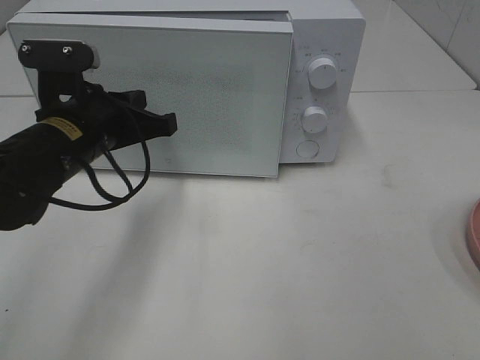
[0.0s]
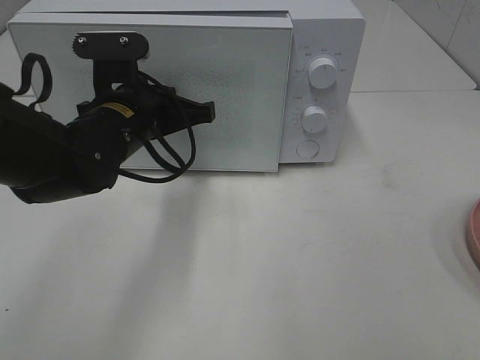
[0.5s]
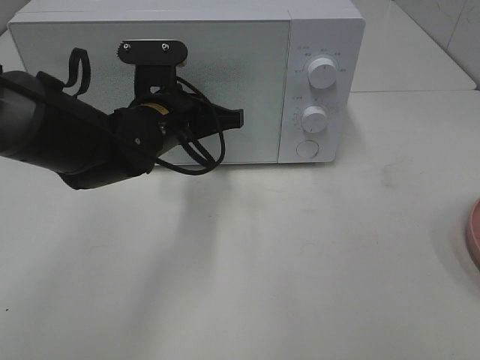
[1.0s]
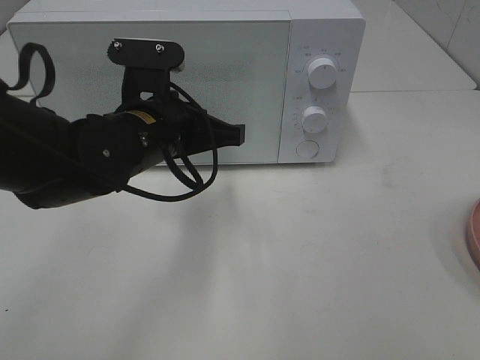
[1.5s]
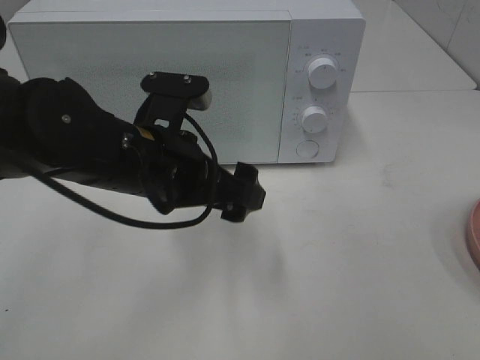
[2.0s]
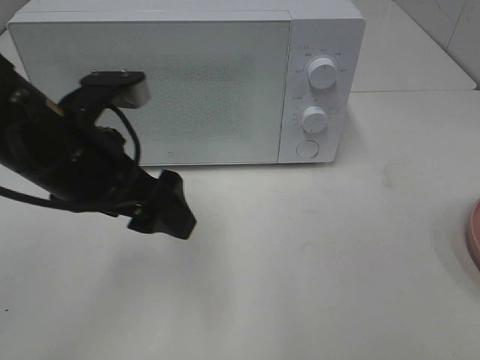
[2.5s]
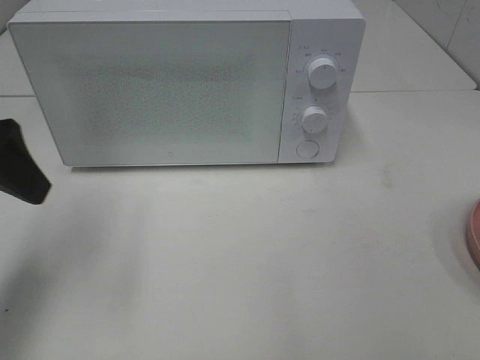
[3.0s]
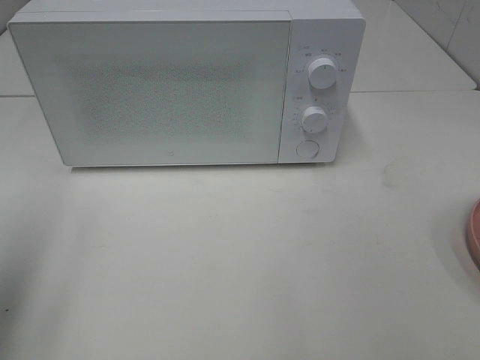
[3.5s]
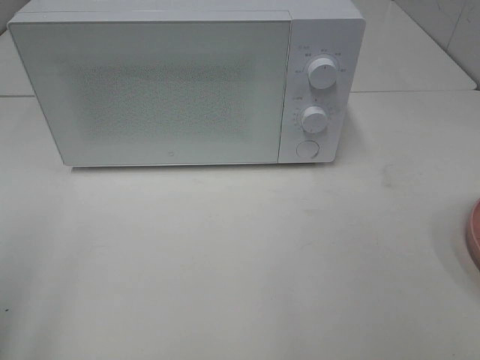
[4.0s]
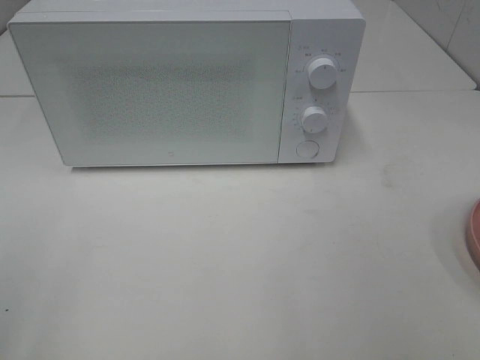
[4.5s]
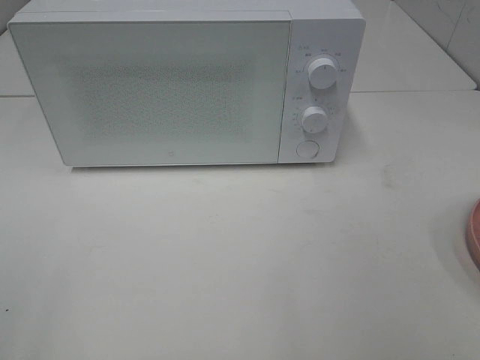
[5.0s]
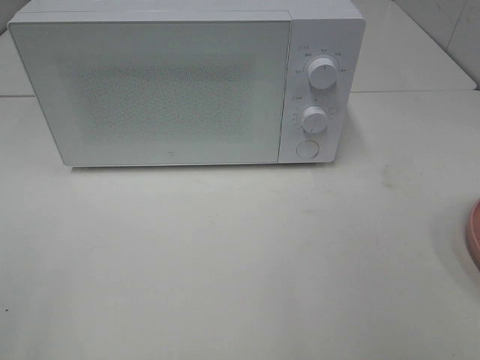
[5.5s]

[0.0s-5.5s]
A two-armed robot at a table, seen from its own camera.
Task of the whole recording: Heat the burger.
0.0s to 2.0s: The left gripper heads to the right, covering approximately 5 cm, and opens its fingers.
2.0s to 3.5s: The left gripper shifts some 25 cm to the left and upward.
3.5s to 5.5s: The left gripper heads backward, covering roughly 15 cm.

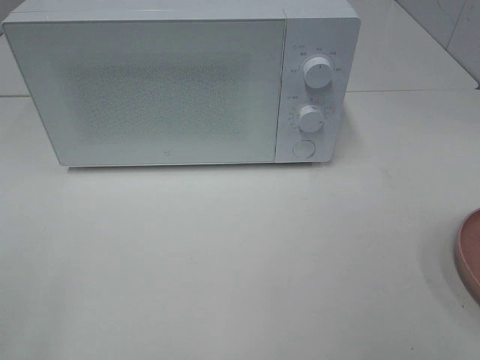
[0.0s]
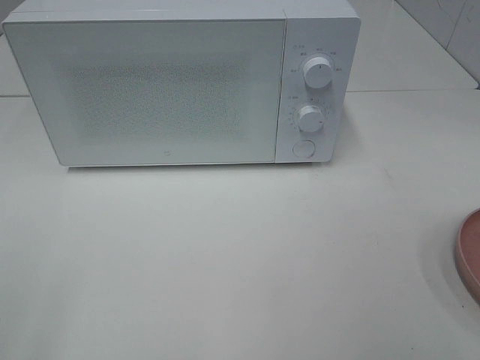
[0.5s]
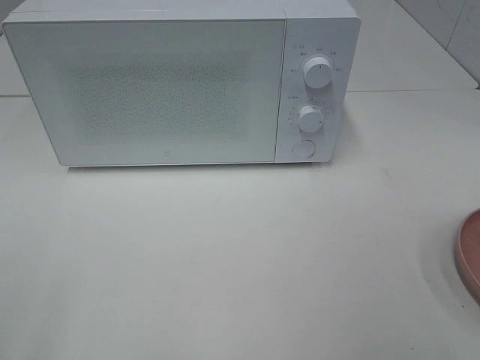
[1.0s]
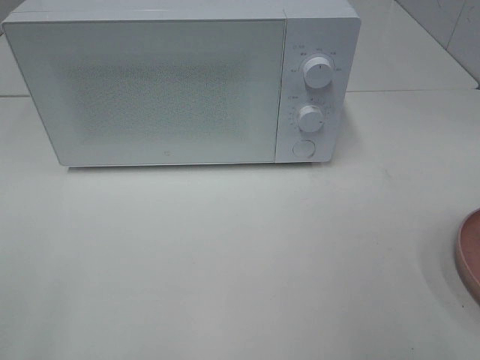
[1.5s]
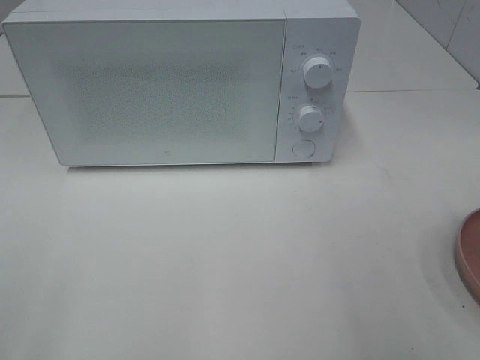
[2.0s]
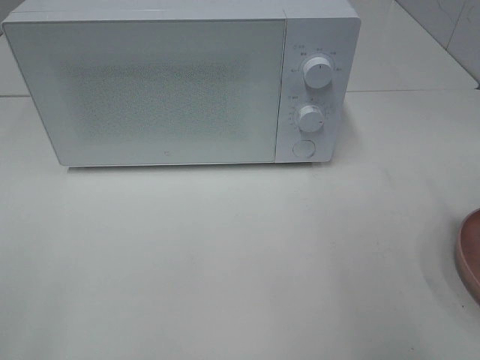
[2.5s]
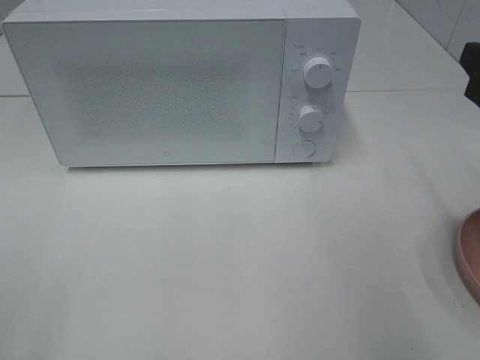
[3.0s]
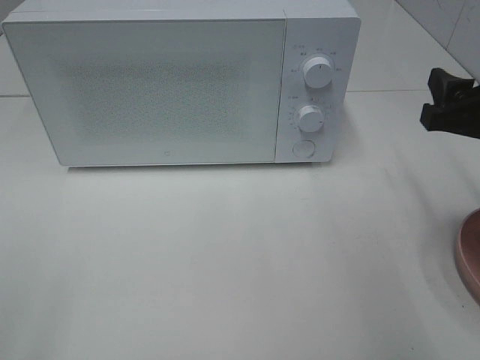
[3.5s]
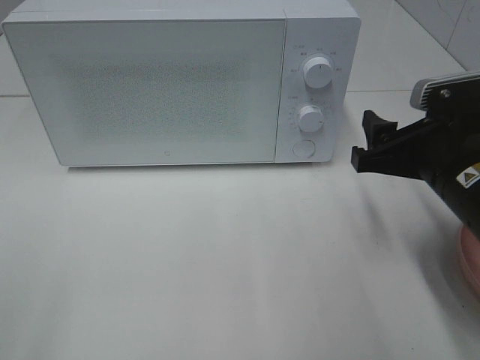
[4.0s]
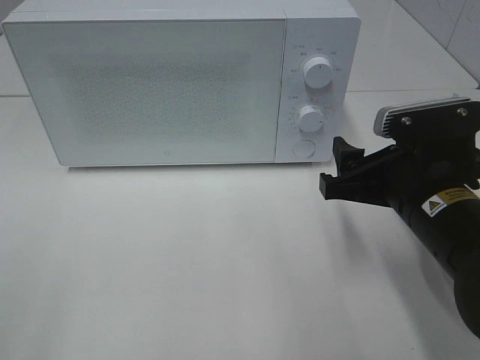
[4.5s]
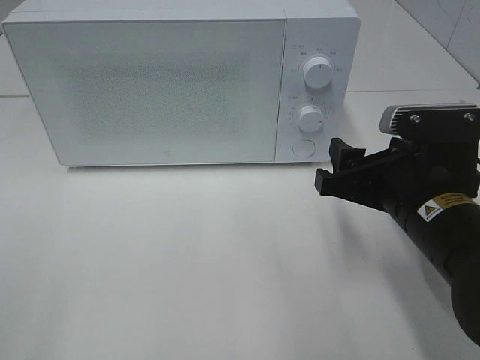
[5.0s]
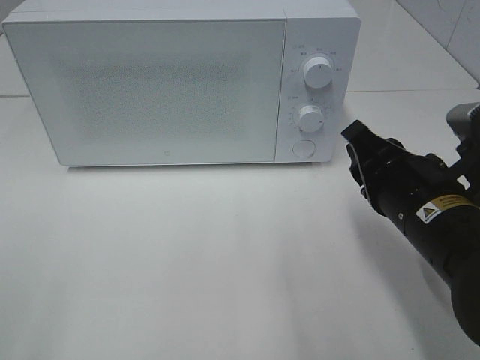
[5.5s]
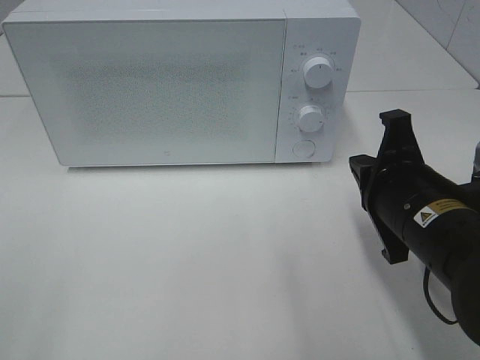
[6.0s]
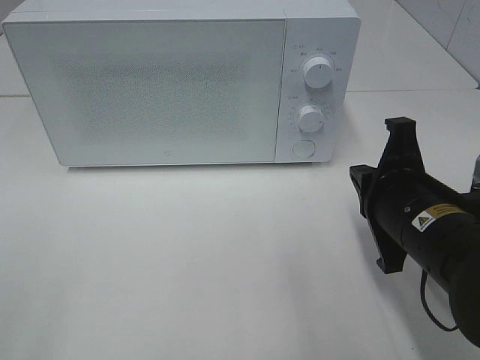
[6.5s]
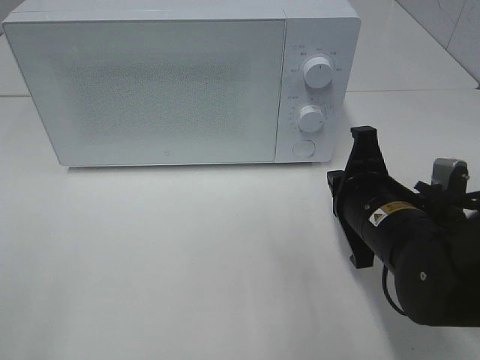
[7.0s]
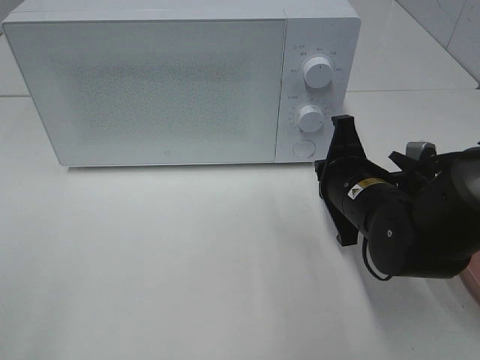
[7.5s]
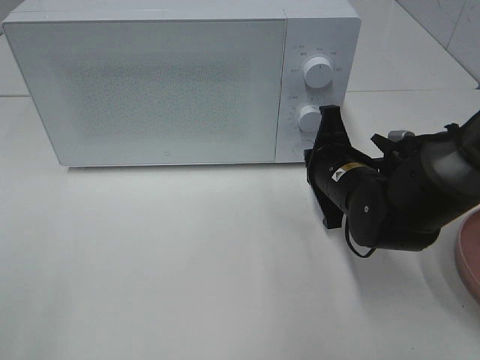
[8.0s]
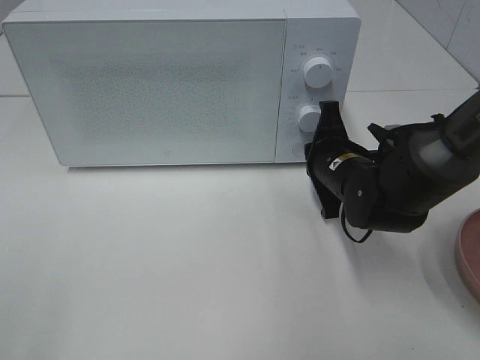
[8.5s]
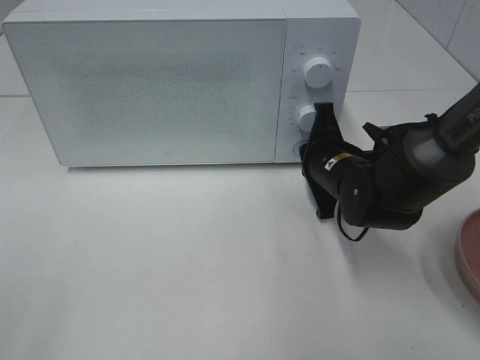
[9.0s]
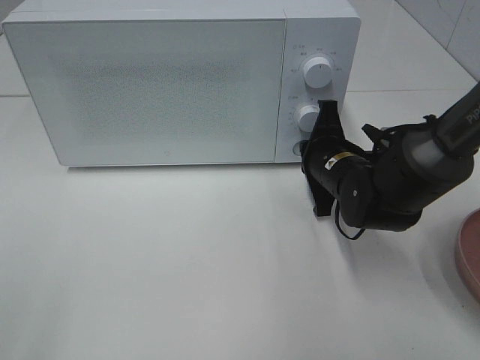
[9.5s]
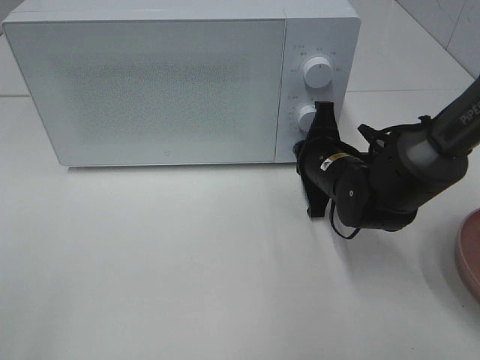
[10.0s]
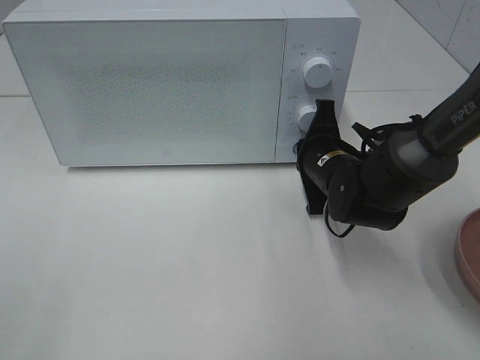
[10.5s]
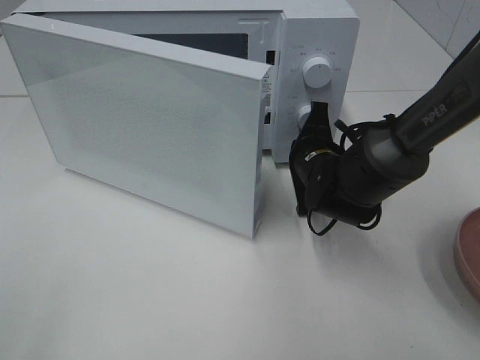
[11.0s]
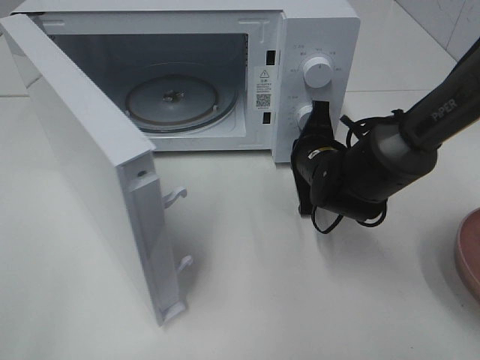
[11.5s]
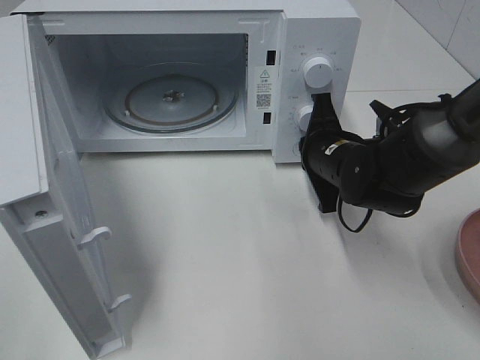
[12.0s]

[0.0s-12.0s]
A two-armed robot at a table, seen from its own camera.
Task of the whole recording: Heat the burger.
2.0s to 4.0s: The right gripper shifts some 15 cm forward, downward and to the left.
4.0s to 6.0s: The right gripper closes.
6.0s to 8.0s: The right gripper moves forward and downward, roughly 10 cm.
8.0s to 10.0s: The grippers move only a little.

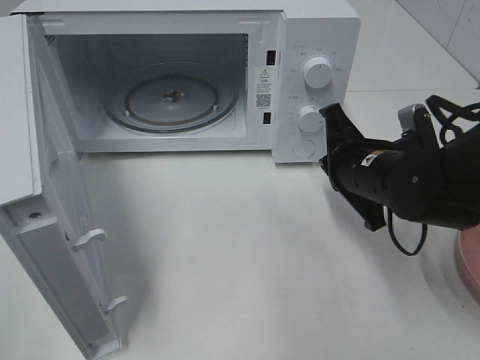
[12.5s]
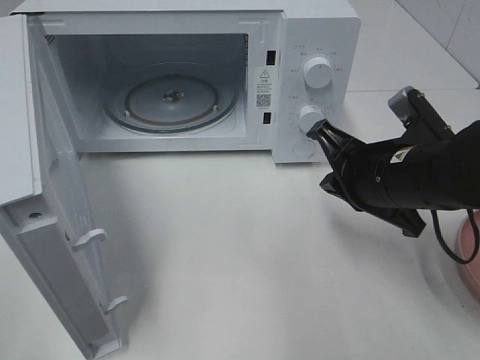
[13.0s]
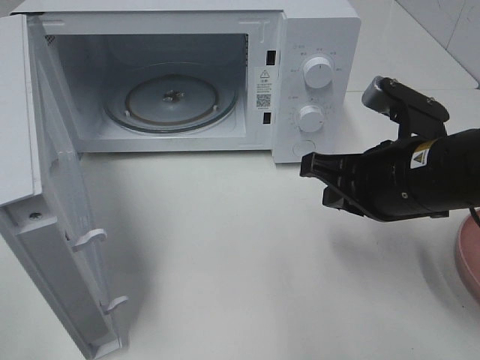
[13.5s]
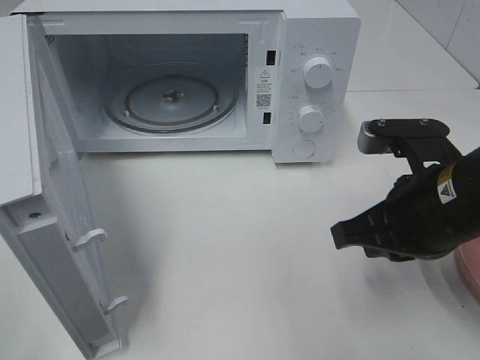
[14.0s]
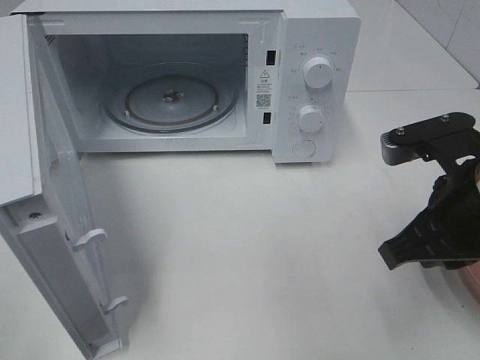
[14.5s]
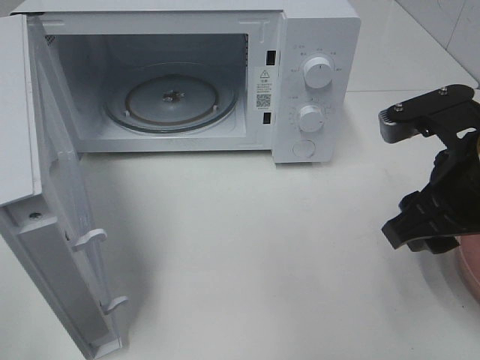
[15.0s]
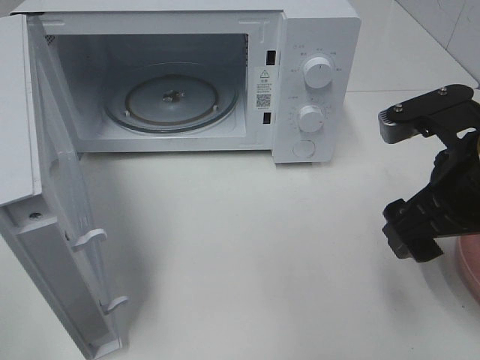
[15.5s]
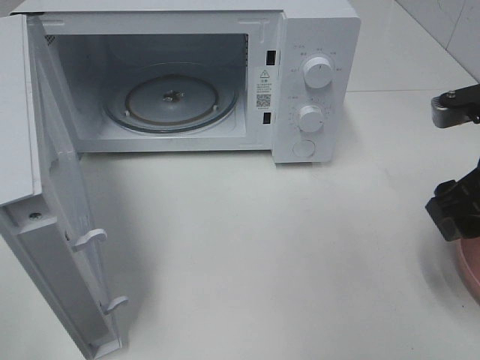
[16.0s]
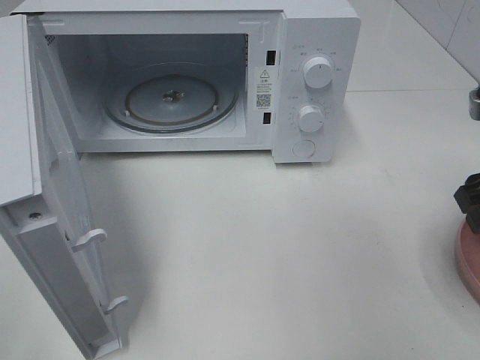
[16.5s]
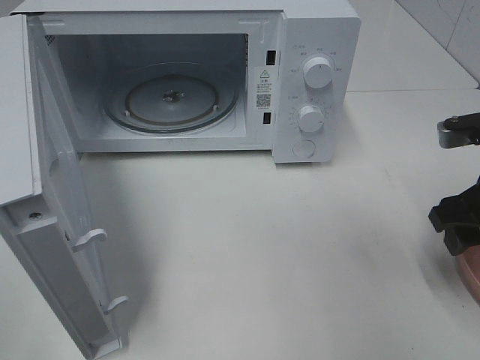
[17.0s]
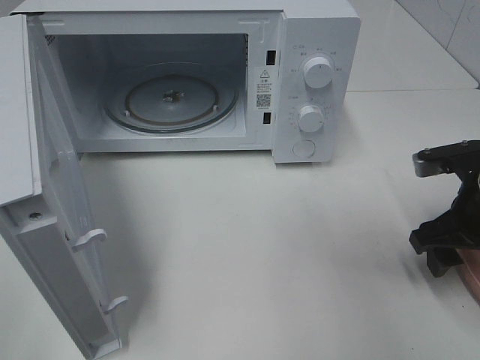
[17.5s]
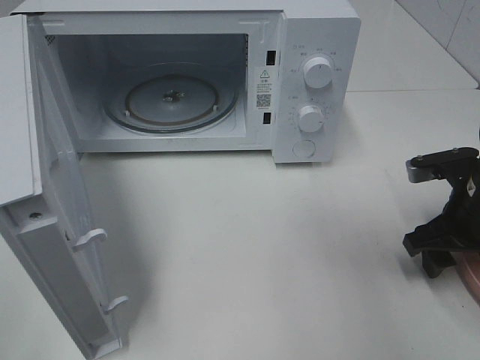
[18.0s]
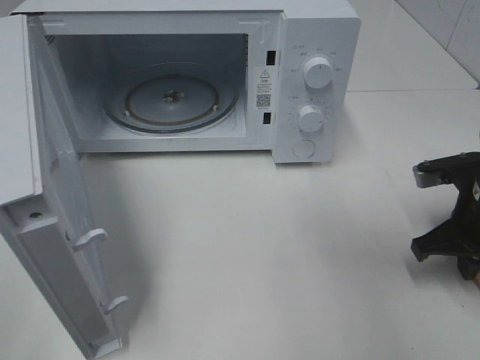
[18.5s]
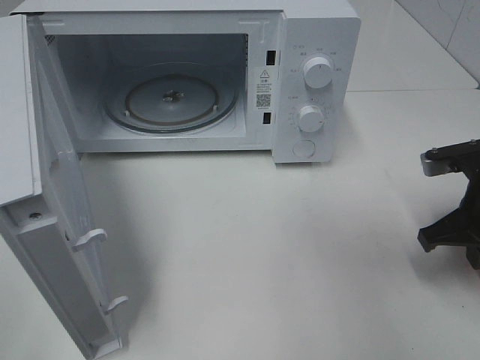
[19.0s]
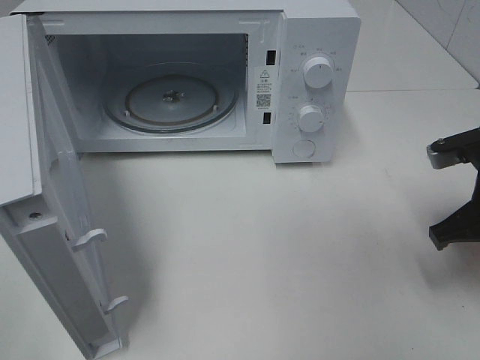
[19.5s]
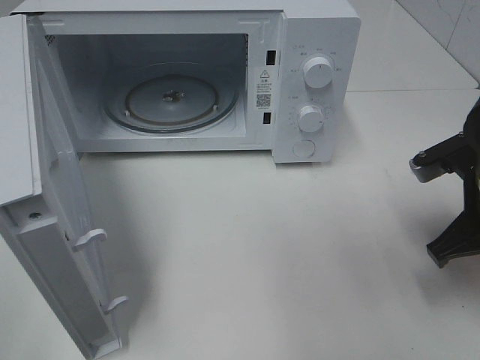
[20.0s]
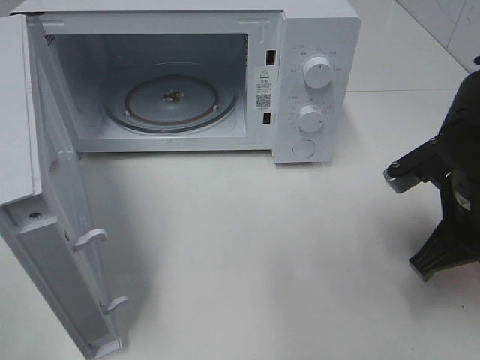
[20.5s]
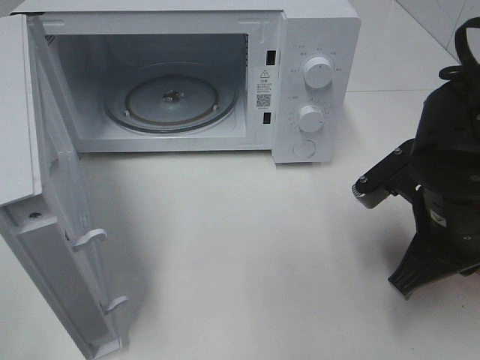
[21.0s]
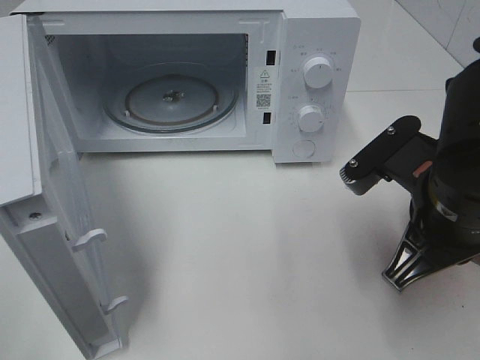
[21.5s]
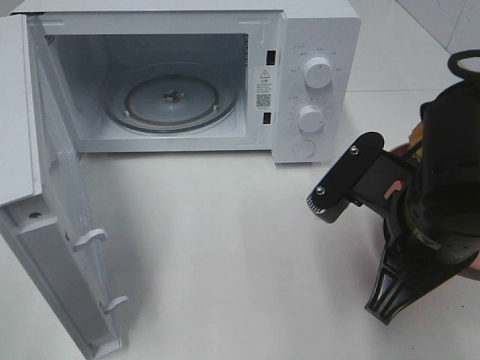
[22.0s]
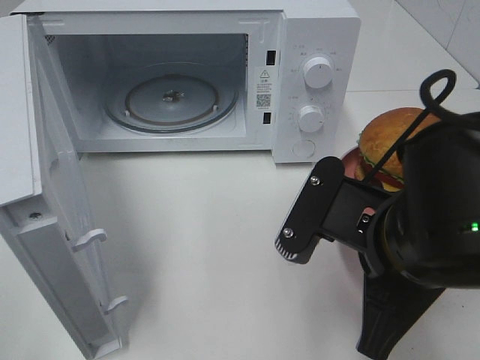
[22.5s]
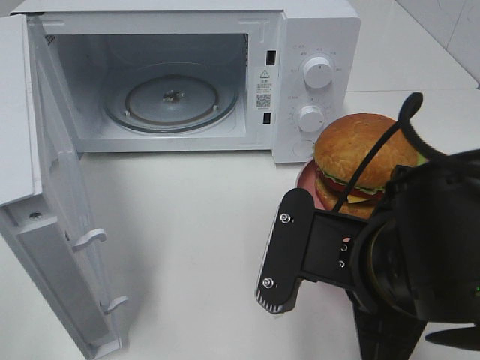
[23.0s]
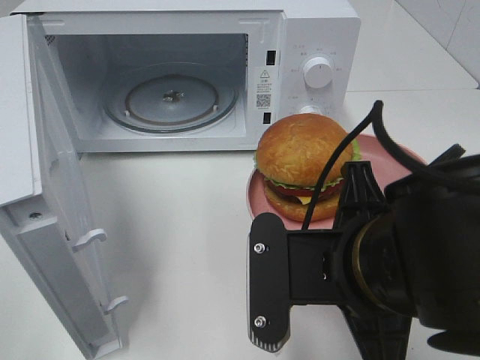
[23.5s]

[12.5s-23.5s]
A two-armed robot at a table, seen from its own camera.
Task of the whole recording: Heat the burger.
Step, 12.5s to 18.5s: Right hand: grab the plate with the hamburger.
12.5s to 14.5s: The right gripper heads backward and upward, covering roughly 10 cm.
14.5s to 16.0s: The right gripper changes place by some 5 cm, and opens its fingers.
16.0s to 18.0s: The right gripper is displaced downward by approximately 10 cm.
18.0s to 20.0s: The right gripper shifts approximately 5 cm upward, and closes its fingers.
20.0s to 21.5s: The right gripper moves to the left, some 10 cm.
21.5s to 23.5s: The right gripper shifts some 10 cm to the left and backward.
